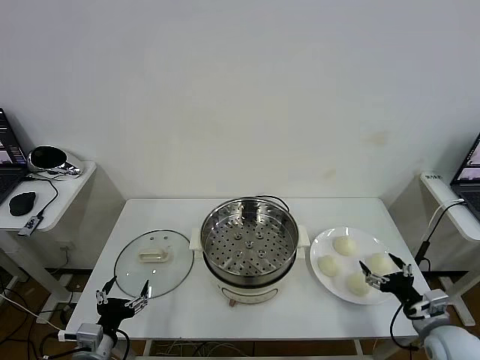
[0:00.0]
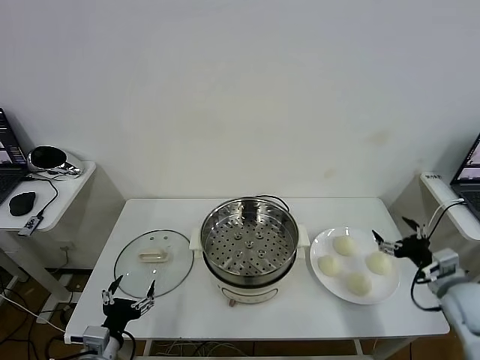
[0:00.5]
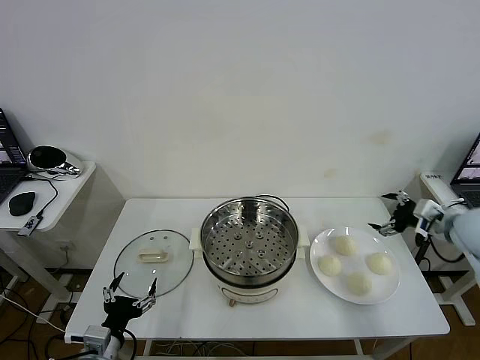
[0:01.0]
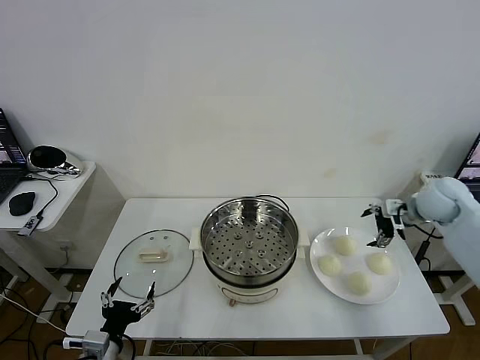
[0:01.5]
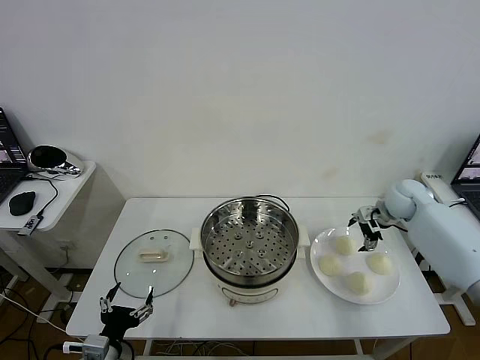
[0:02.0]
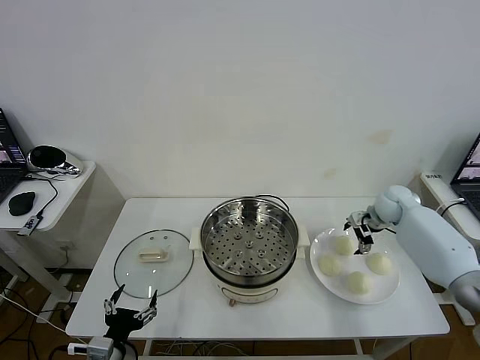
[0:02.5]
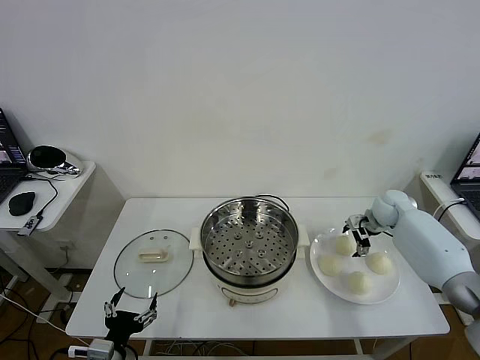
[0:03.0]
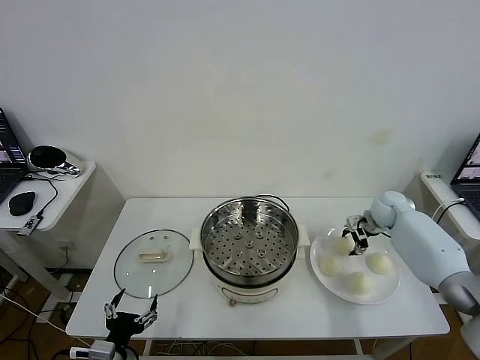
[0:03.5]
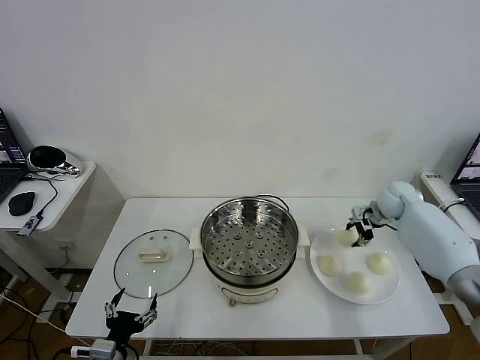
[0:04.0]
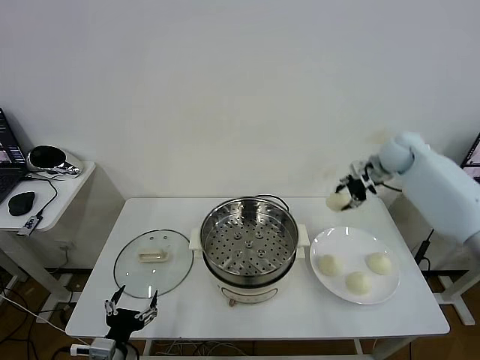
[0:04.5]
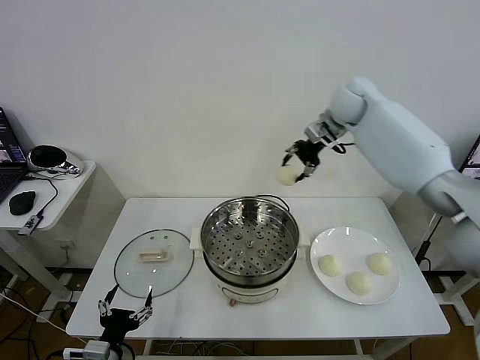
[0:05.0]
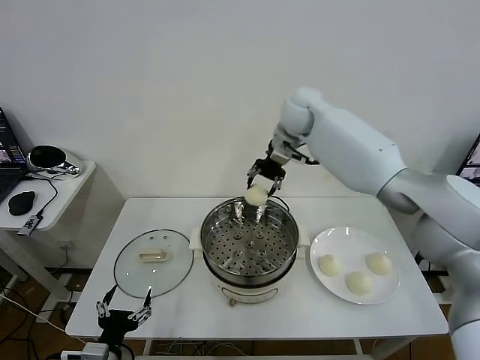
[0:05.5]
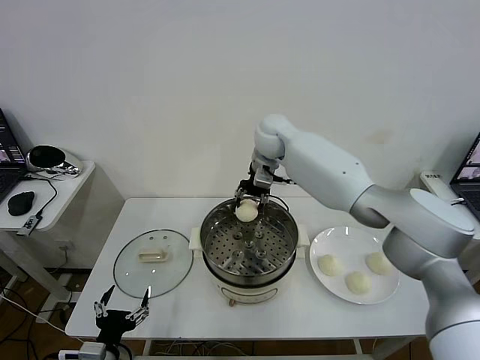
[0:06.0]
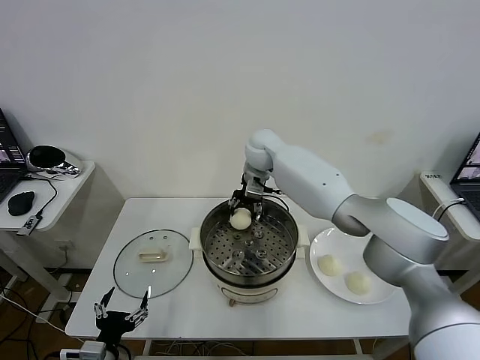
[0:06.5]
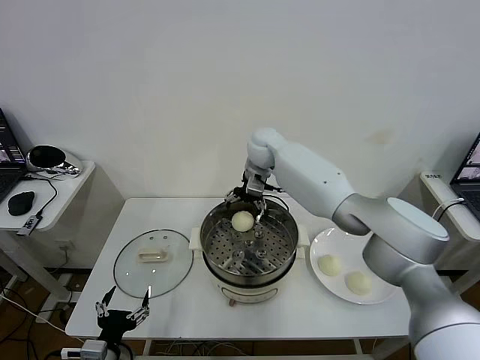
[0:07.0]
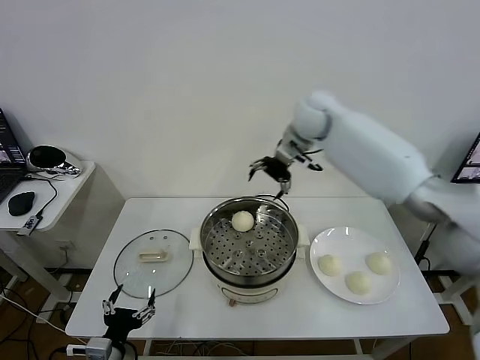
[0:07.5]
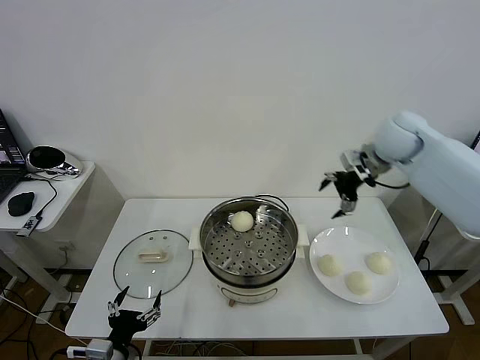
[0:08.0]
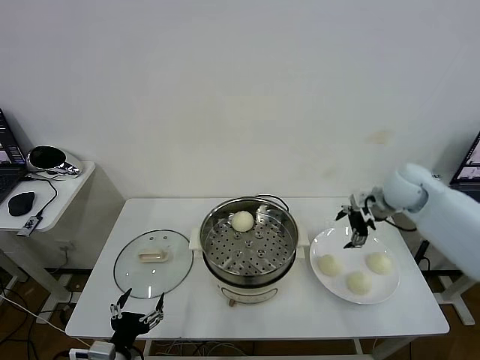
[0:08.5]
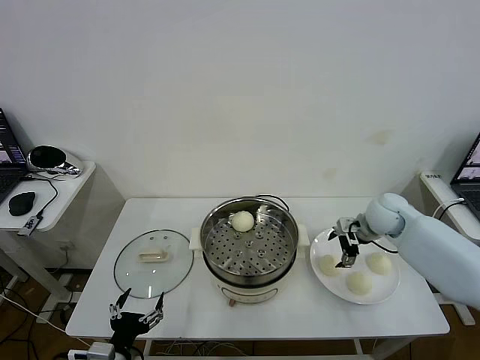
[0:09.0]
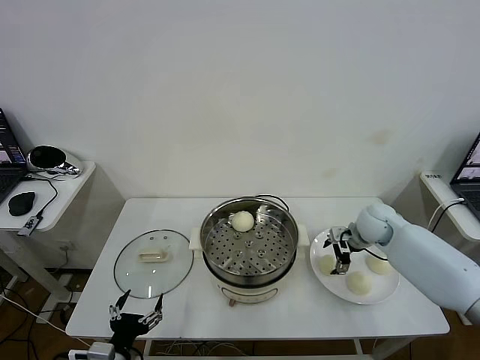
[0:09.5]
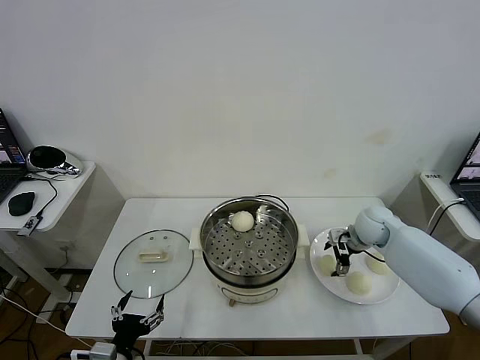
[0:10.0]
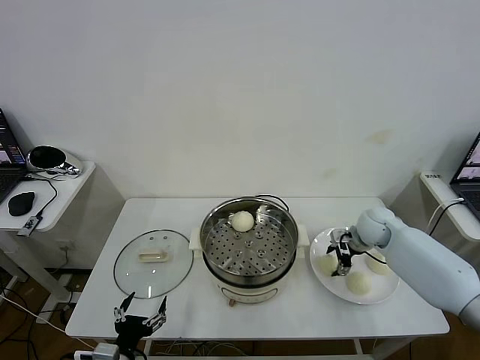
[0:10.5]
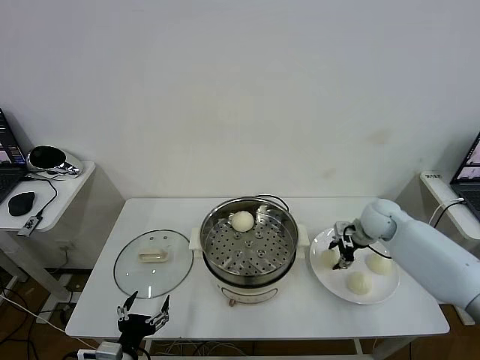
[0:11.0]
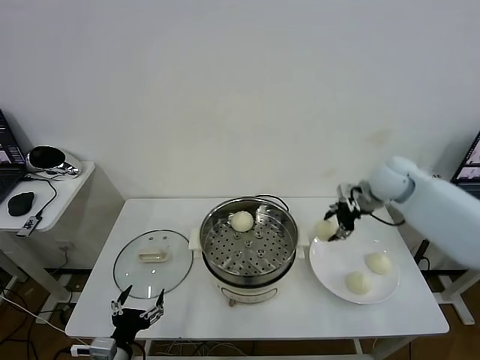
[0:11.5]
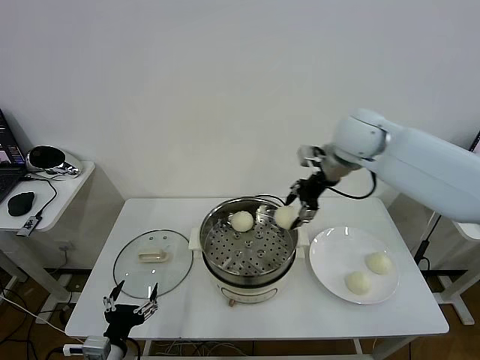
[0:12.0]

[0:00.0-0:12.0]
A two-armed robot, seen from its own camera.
Task of the whole recording: take steamed baozi put them in steamer then cover it.
Step, 0:00.0 to 0:03.0: Grasp the baozi in the plate with right gripper.
Step, 0:04.0 to 0:07.0: Place the baozi on the steamer with right gripper.
Step, 0:07.5 to 0:10.5: Grasp the baozi in the plate with right gripper.
0:02.0 to 0:04.0: The right gripper closes up.
0:04.0 to 0:06.0: The right gripper shifts about 35 cm to the left.
0:06.0 to 0:08.0: The right gripper travels to the right by some 25 cm, and opens its fingers.
0:08.0 to 0:10.0: The right gripper travels downward by about 20 cm.
0:10.0 to 0:12.0: The right gripper heads upward and to the left, covering some 30 cm, and closes.

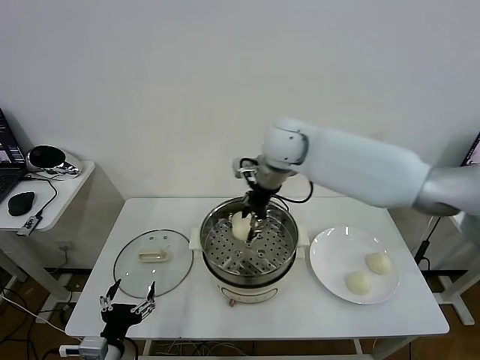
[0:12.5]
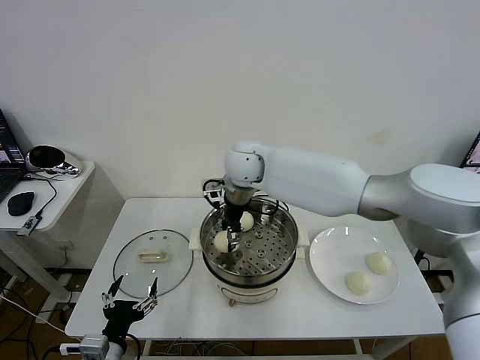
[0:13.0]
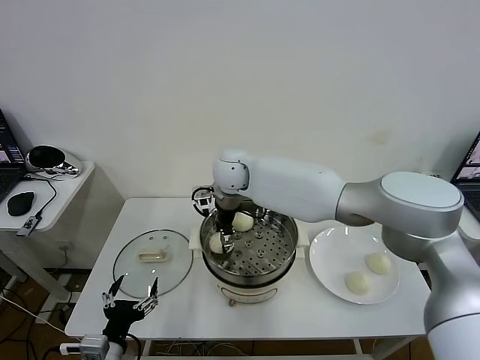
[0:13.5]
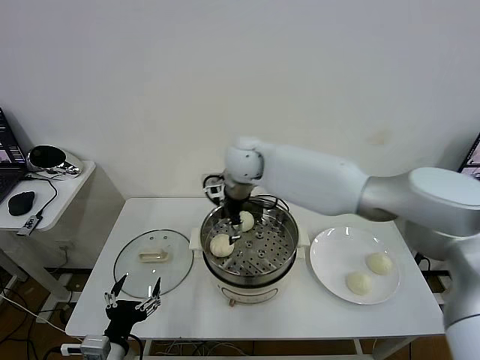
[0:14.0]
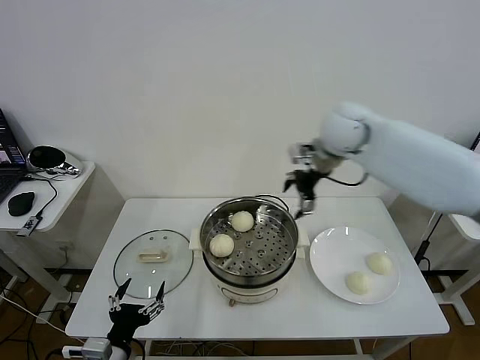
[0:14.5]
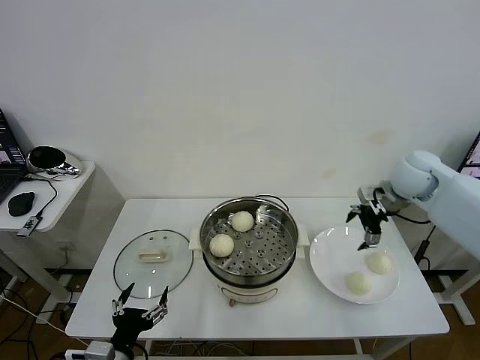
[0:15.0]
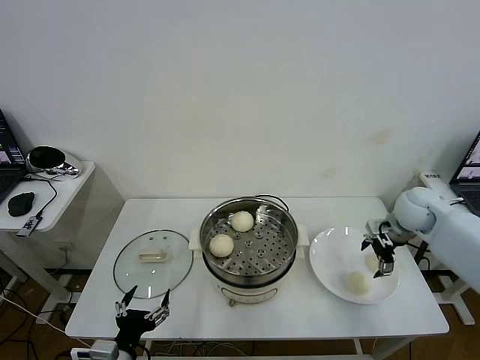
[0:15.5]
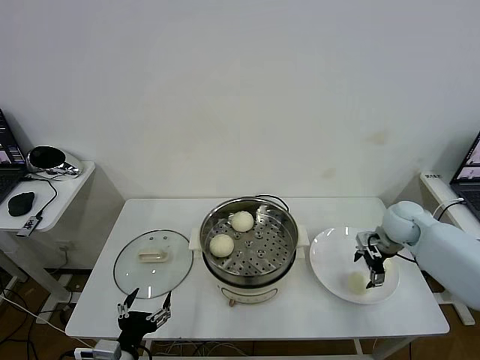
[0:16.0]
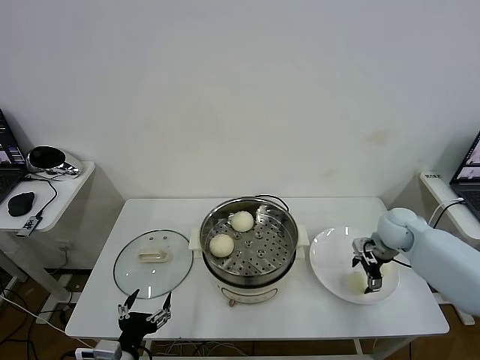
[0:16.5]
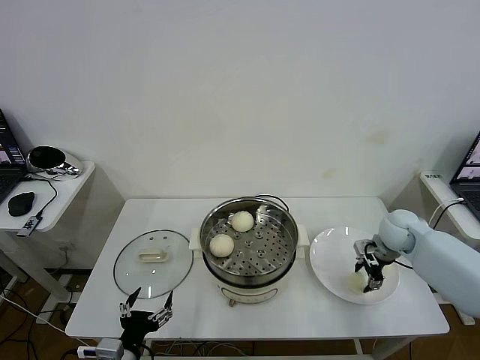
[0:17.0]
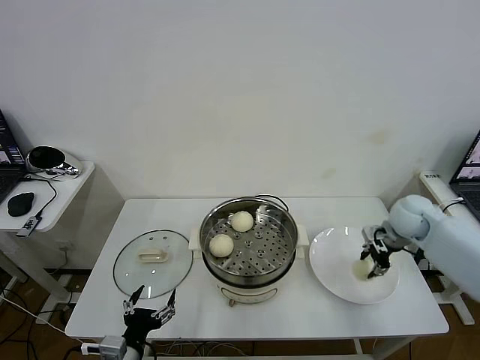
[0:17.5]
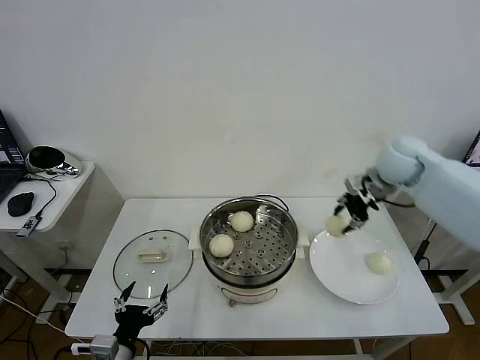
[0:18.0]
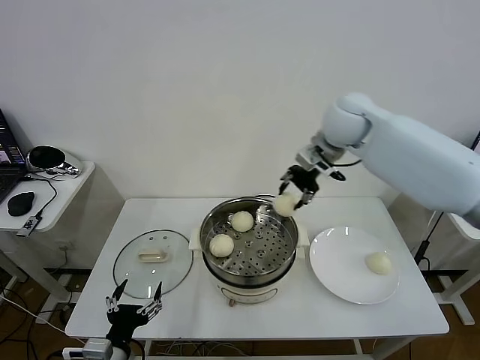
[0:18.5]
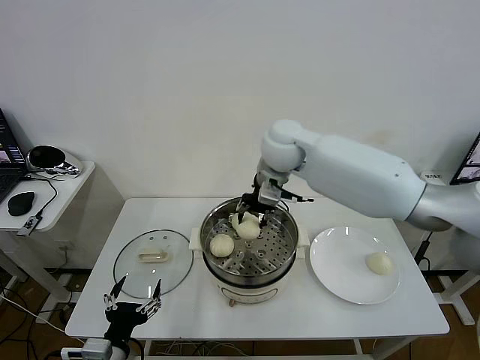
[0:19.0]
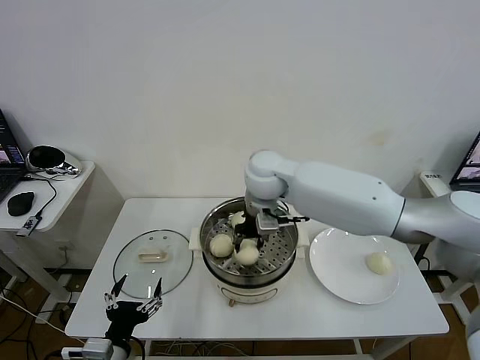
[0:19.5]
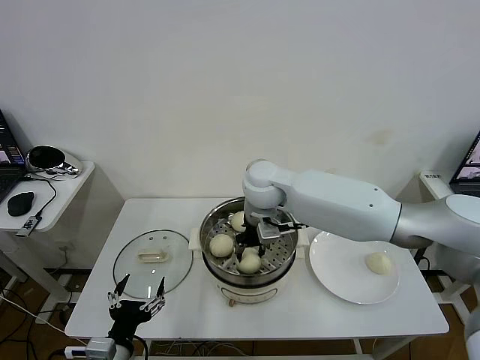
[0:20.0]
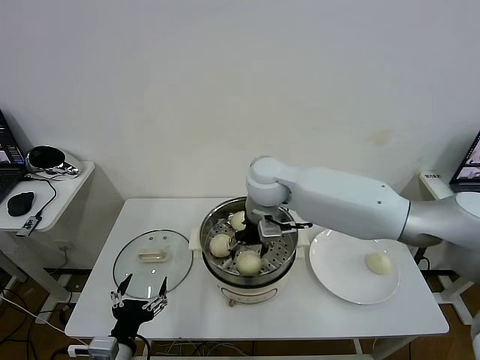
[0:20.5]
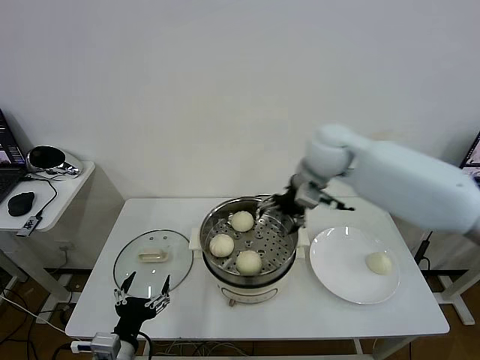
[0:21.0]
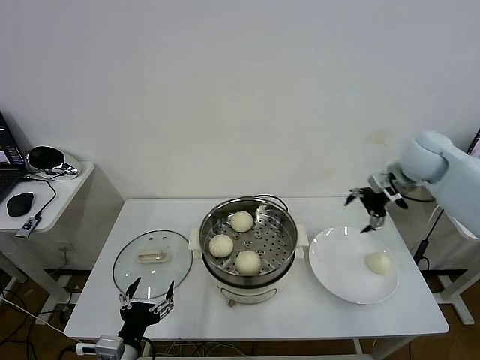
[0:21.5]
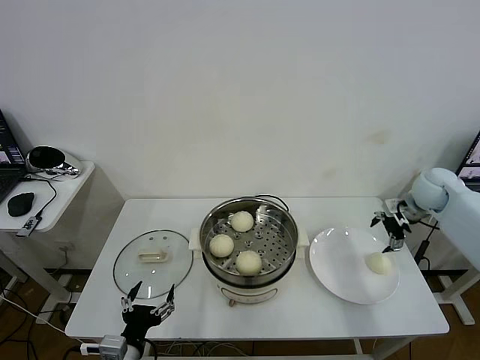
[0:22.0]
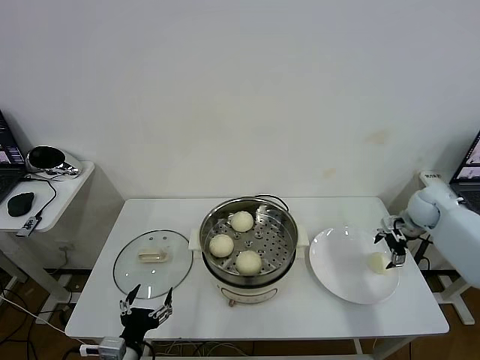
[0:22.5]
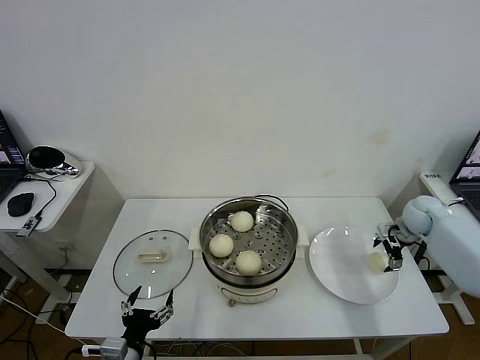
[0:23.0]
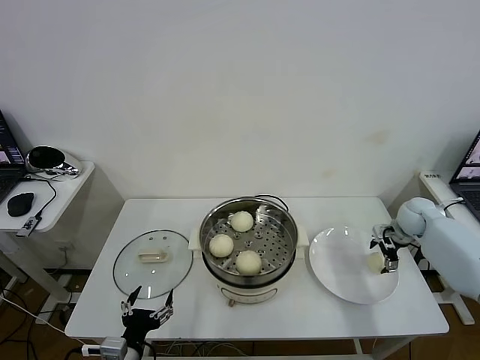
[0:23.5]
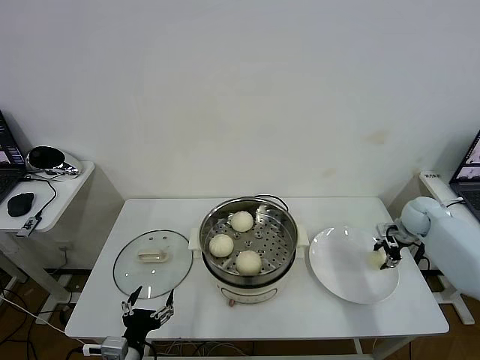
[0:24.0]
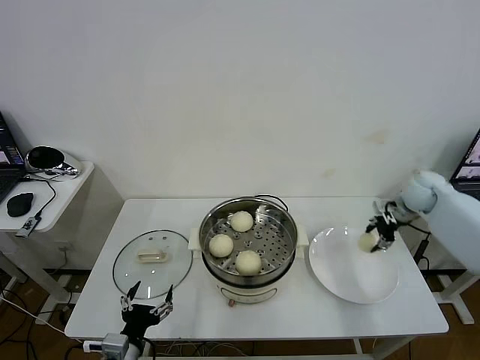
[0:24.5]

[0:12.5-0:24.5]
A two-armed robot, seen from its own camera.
Task of the whole recording: take steamed baozi put them in steamer then cover it.
Step, 0:14.5 to 0:17.0: Grasp the baozi in the plate with right gripper.
Step, 0:17.5 to 0:20.5: Place the baozi on the steamer with right gripper.
Step, 0:21.0 to 0:24.0: Grasp the baozi in the plate with right gripper.
0:12.5 to 0:14.5: The right gripper moves to the right, roughly 15 cm, and opens its fingers.
0:14.5 to 0:16.5: The right gripper goes approximately 30 cm downward and to the right.
0:16.5 to 0:18.5: The right gripper travels upward and to the left by approximately 30 cm, and closes up.
0:18.5 to 0:20.5: The right gripper travels to the left, downward and backward by approximately 20 cm, and opens up.
0:20.5 to 0:22.5: The right gripper shifts approximately 40 cm to the right.
0:22.5 to 0:24.5: The right gripper moves approximately 5 cm, and closes up.

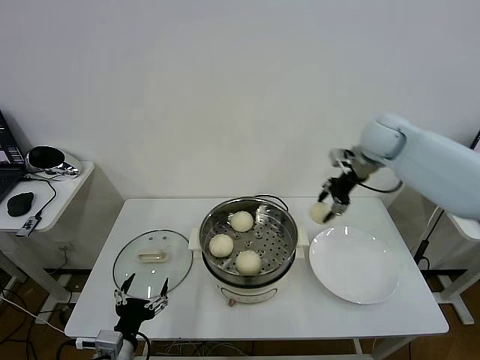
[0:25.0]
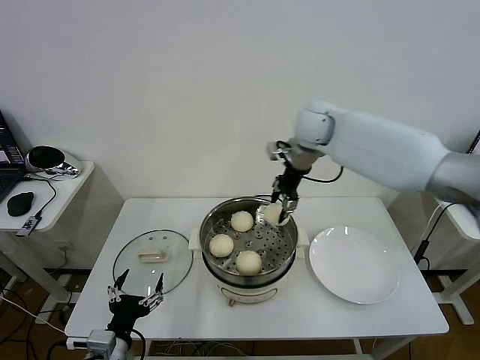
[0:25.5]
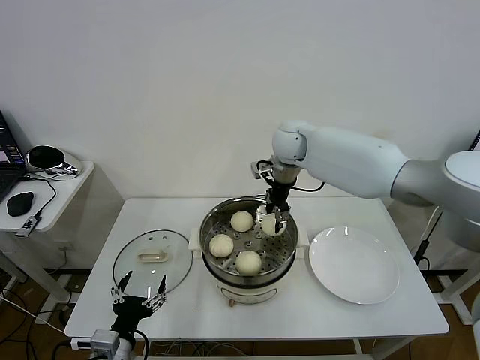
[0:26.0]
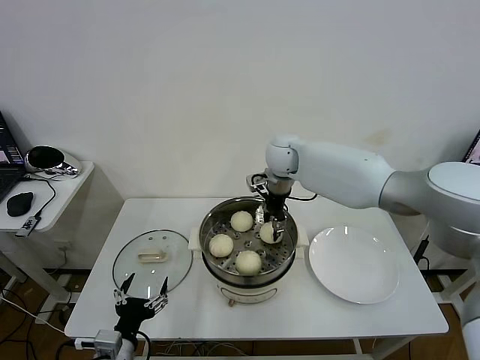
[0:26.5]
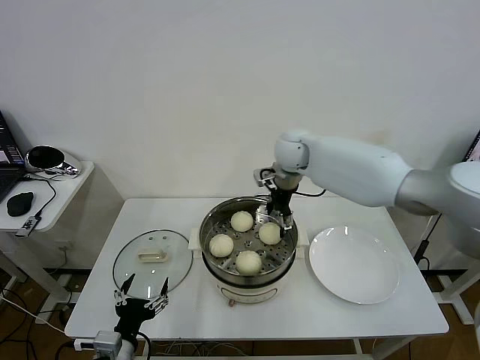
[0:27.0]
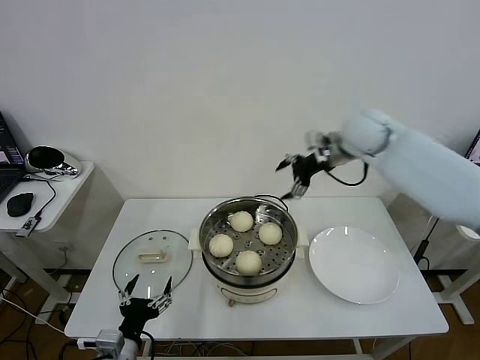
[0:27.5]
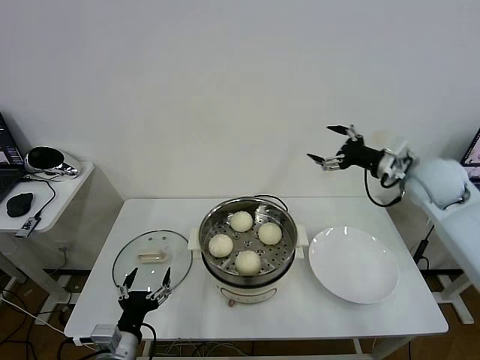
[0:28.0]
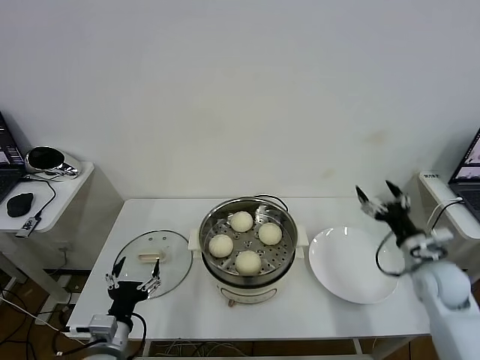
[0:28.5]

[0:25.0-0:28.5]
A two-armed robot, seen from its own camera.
Task of the whole recording: take steamed baozi put them in steamer then cover it.
Step, 0:25.0 to 0:27.0: Place the baozi on the steamer with right gripper.
0:25.0 to 0:27.0: The right gripper travels to the left by approximately 20 cm, and opens its fingers.
0:27.0 to 0:28.5: The right gripper moves to the right, backward and downward, some 40 cm.
